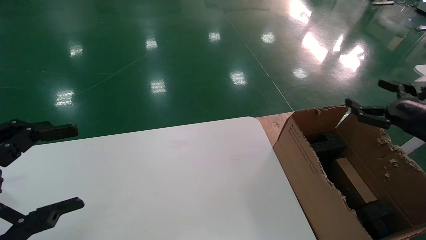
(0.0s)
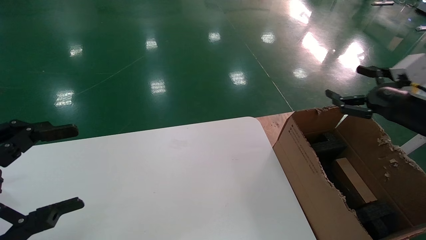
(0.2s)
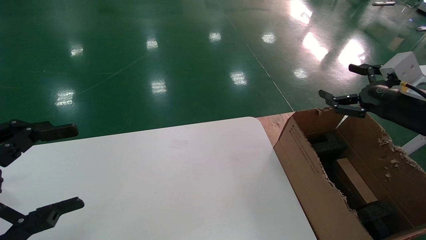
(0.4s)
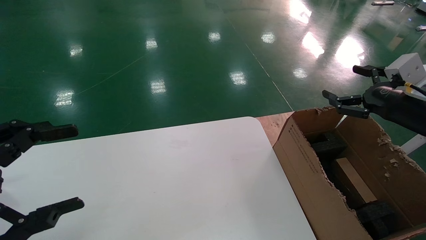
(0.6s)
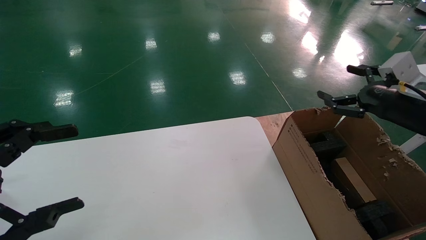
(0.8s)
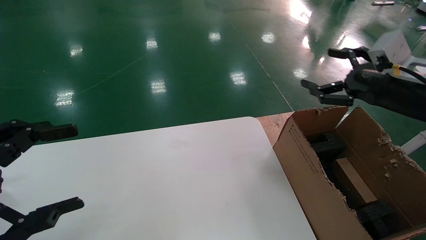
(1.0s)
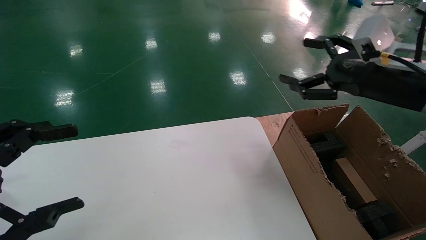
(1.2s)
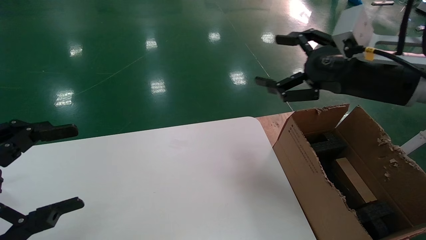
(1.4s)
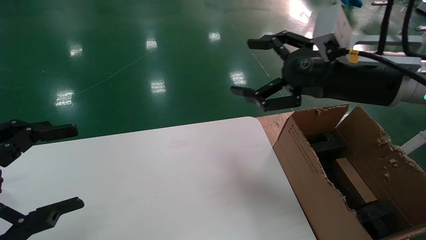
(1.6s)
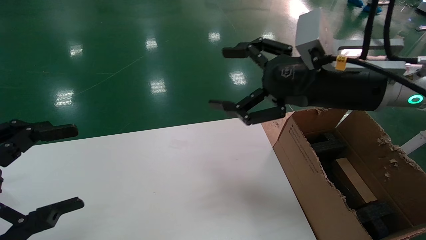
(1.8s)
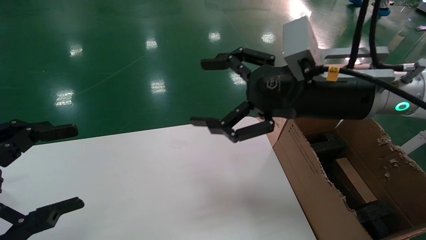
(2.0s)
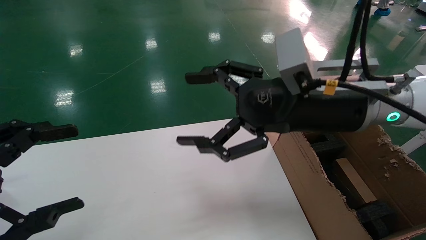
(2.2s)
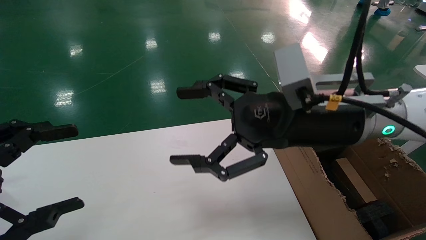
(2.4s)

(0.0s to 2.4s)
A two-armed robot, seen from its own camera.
Task of the whole recording: put the box on the table into the big box.
0.0s - 1.2s: The right gripper moves to the left and upward, some 15 cm.
1.2s - 2.4s: The right gripper is displaced to the left by about 15 cm.
